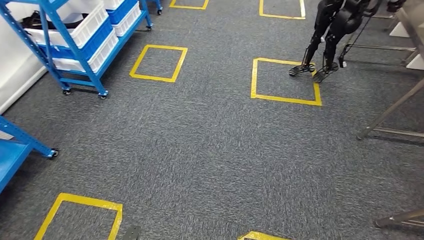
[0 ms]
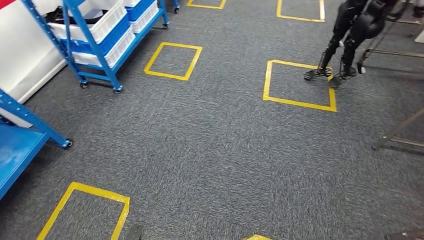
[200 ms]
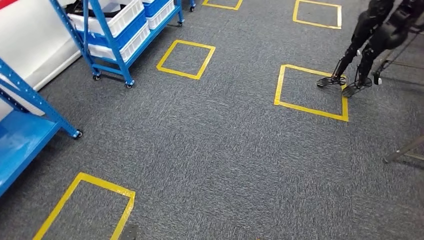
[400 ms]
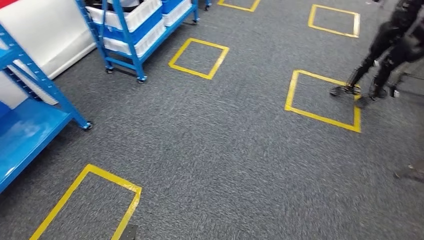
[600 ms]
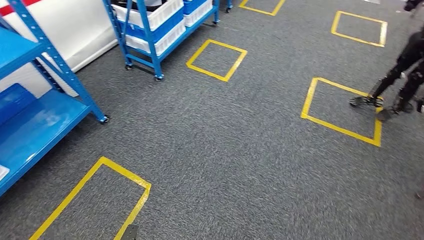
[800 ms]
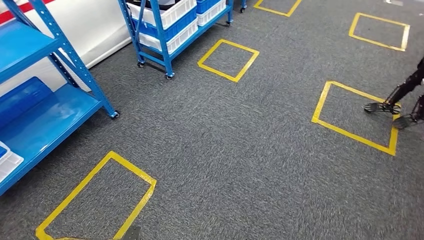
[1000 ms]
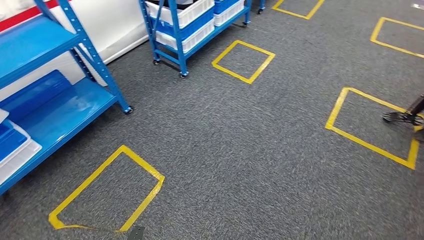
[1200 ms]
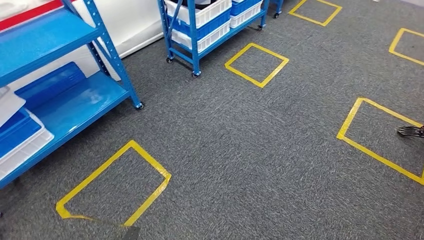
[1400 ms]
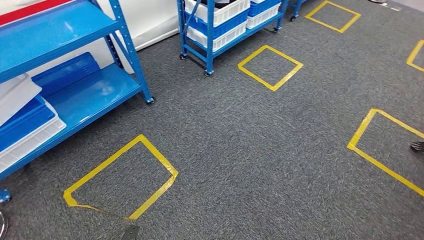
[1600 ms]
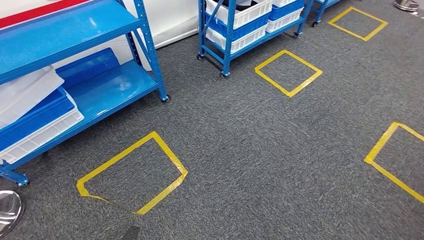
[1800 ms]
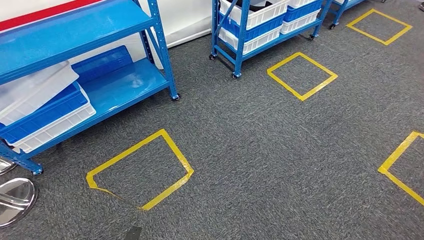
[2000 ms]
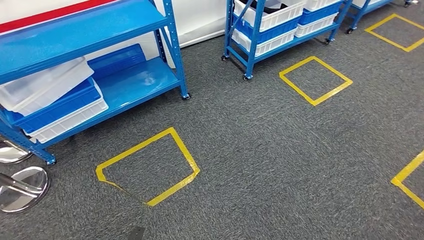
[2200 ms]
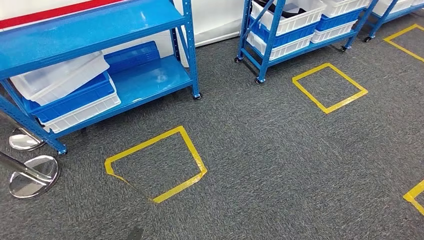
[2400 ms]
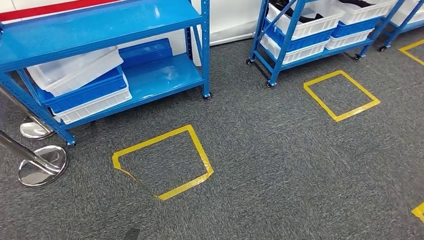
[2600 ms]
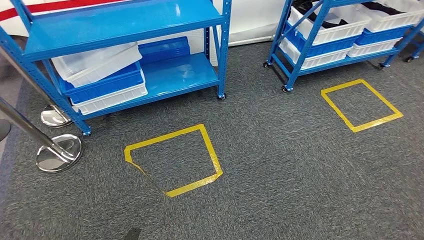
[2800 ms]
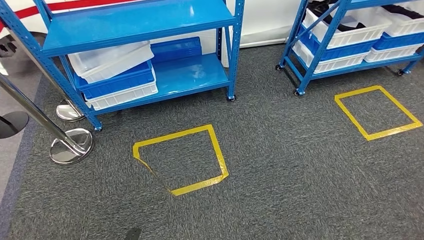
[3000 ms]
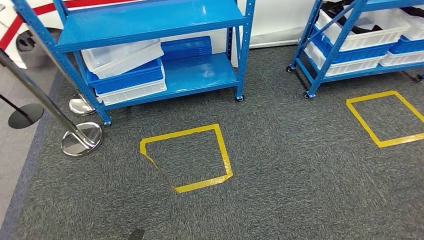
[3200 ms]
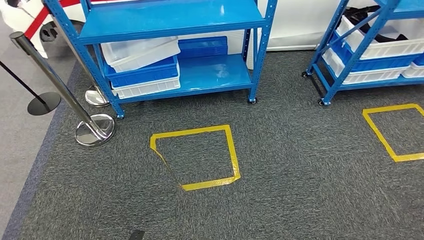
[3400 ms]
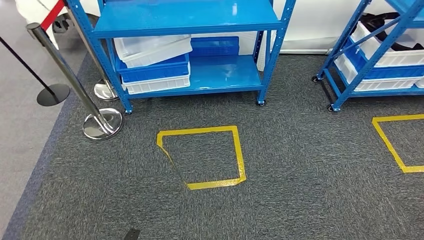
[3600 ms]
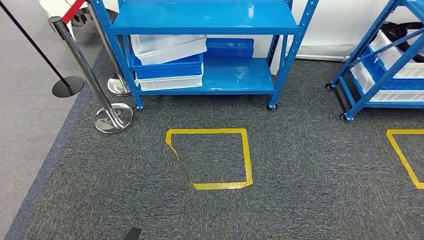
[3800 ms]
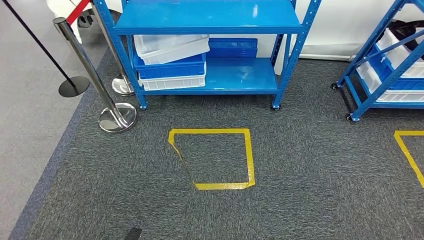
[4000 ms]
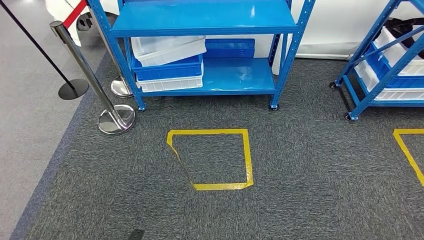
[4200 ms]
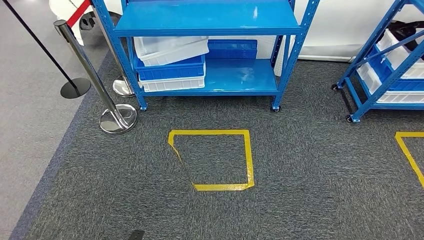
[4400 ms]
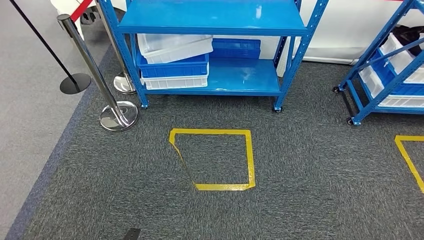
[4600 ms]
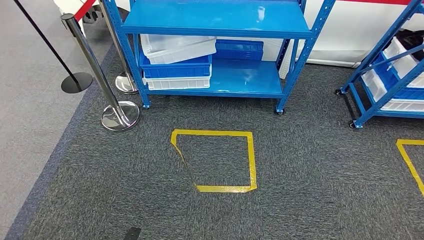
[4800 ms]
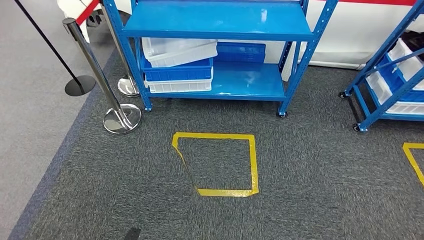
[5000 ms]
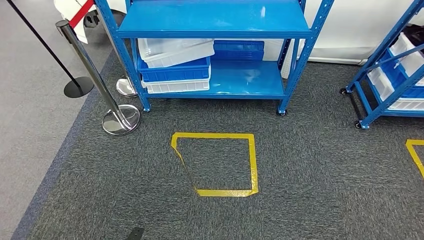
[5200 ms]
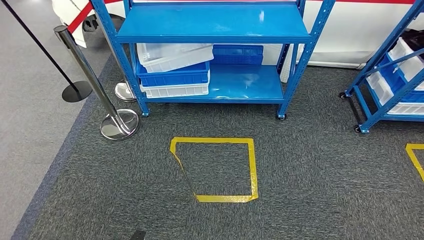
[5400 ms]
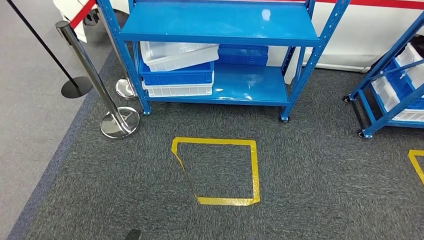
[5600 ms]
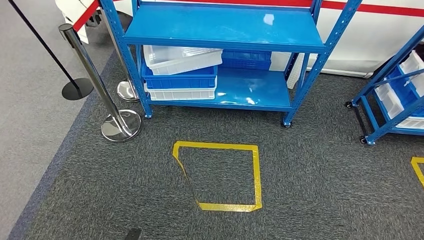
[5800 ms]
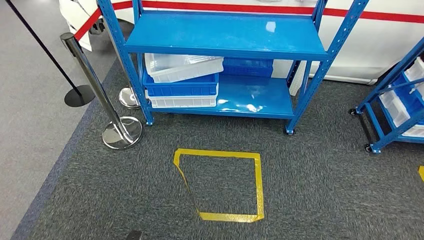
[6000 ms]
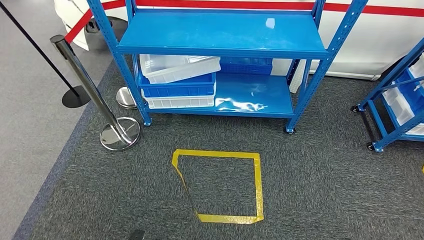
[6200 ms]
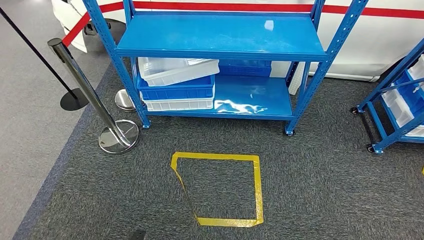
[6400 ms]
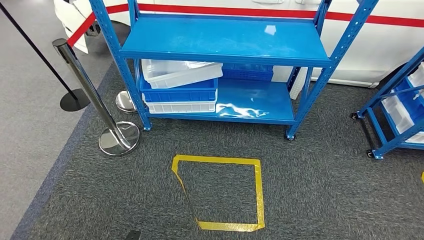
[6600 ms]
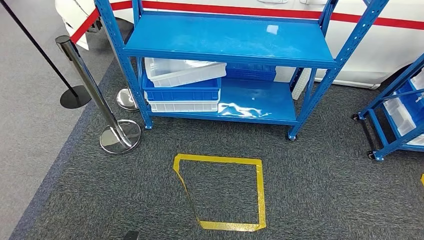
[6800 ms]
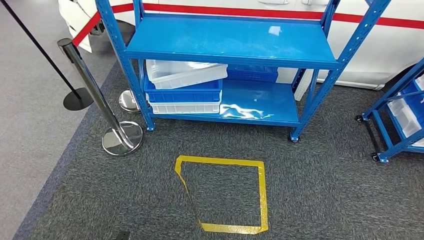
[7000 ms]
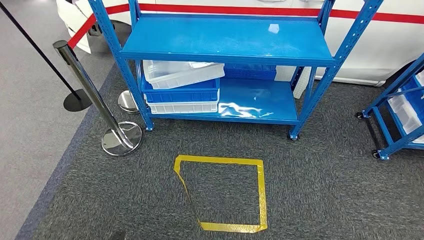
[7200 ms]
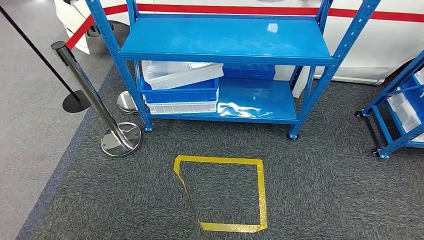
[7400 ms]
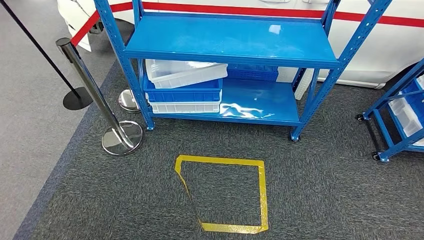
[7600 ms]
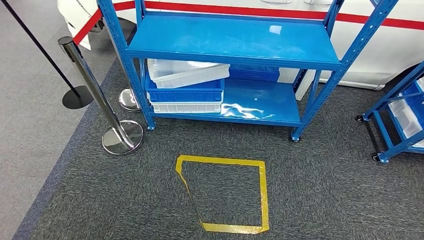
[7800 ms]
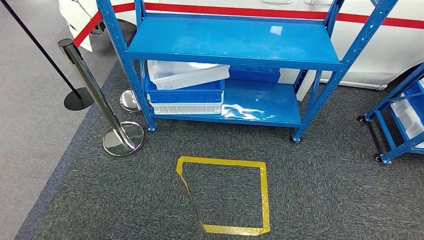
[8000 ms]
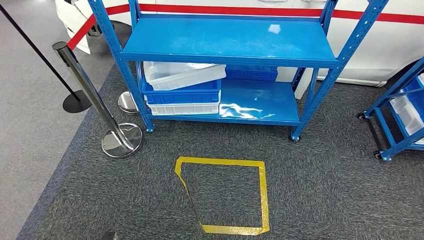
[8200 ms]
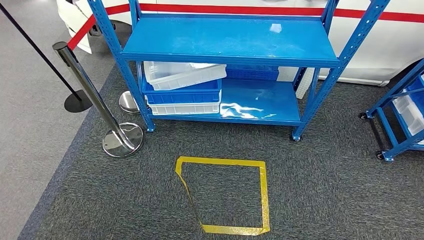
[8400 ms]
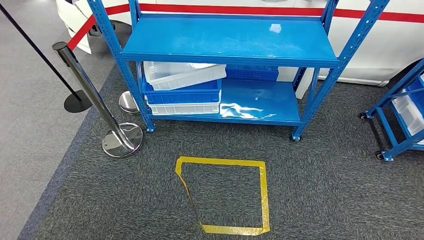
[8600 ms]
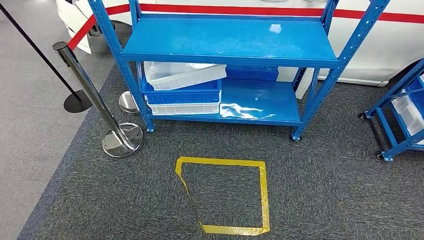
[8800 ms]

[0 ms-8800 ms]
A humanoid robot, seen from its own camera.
Step, 0 ms to 8600 ms: Move to the initial position of the shelf.
7400 ms to 8800 ms: The left hand travels backward by approximately 5 cm.
